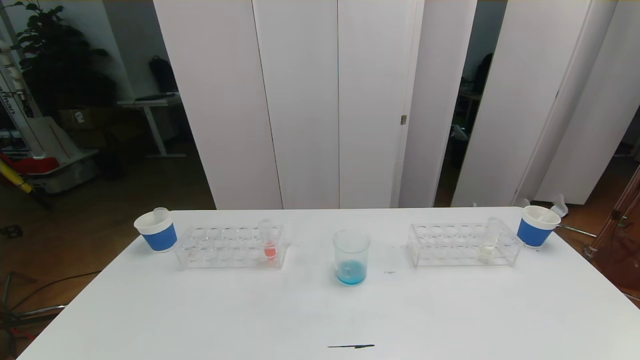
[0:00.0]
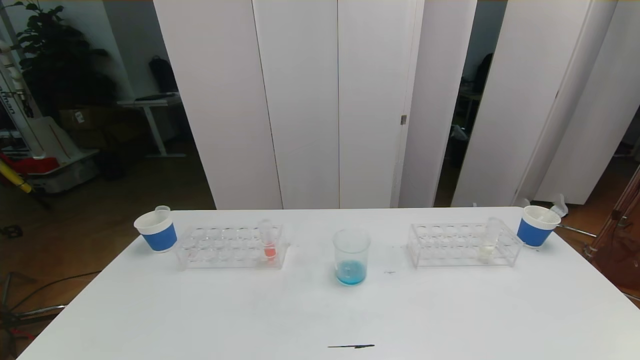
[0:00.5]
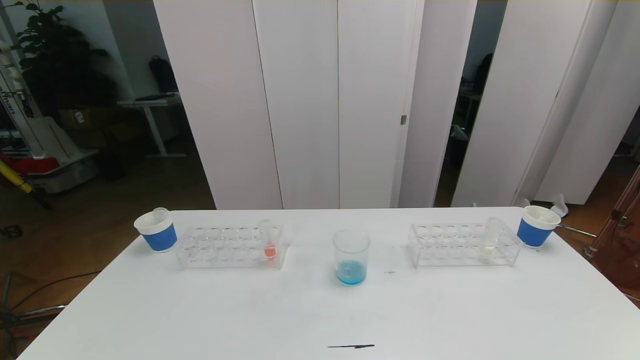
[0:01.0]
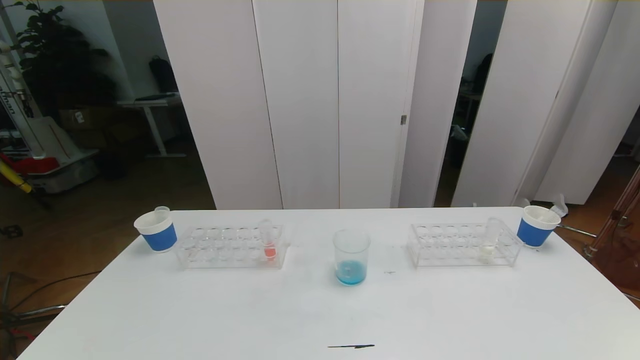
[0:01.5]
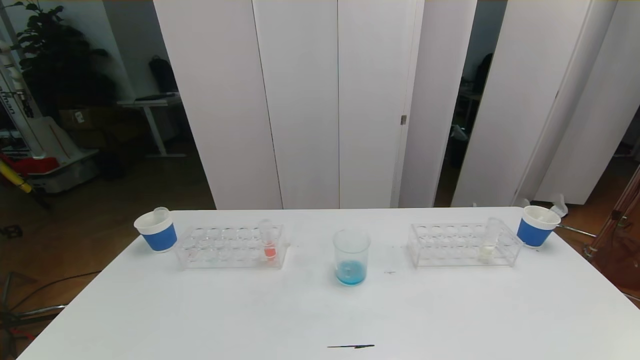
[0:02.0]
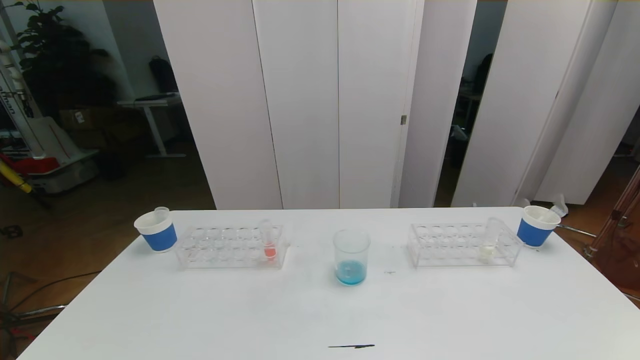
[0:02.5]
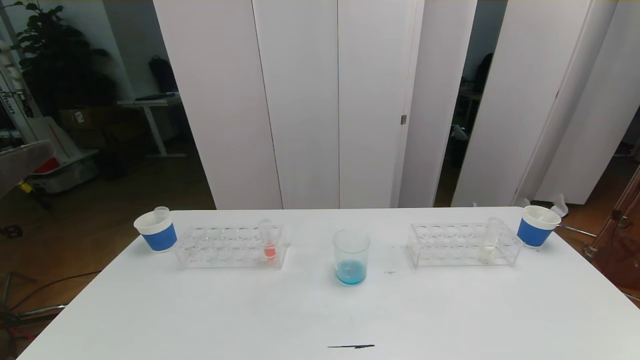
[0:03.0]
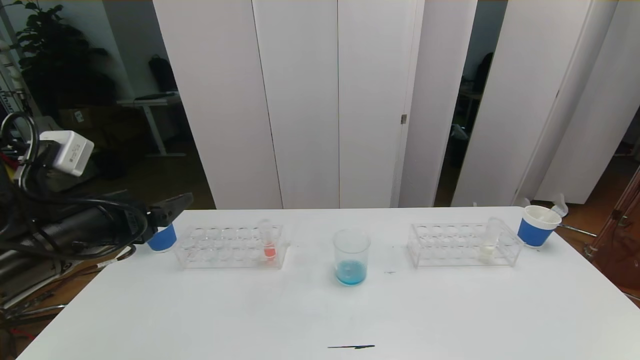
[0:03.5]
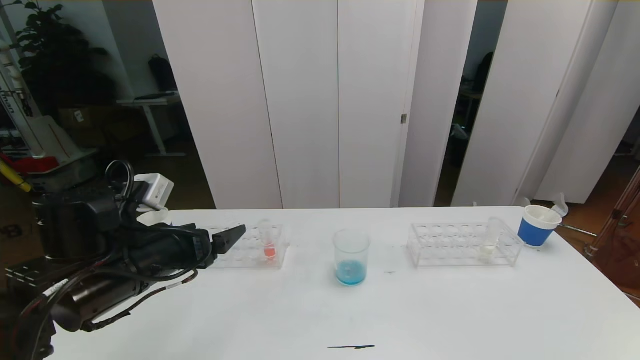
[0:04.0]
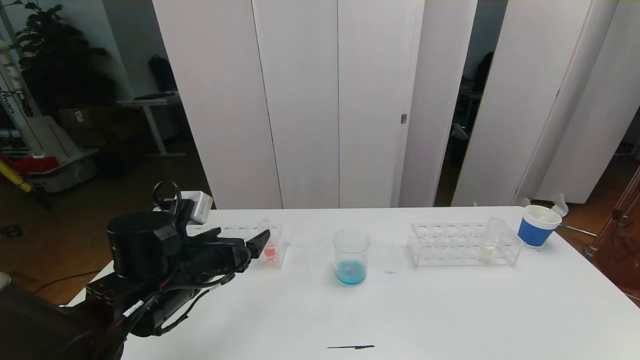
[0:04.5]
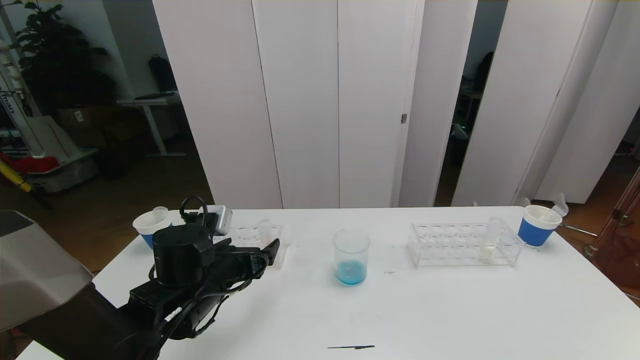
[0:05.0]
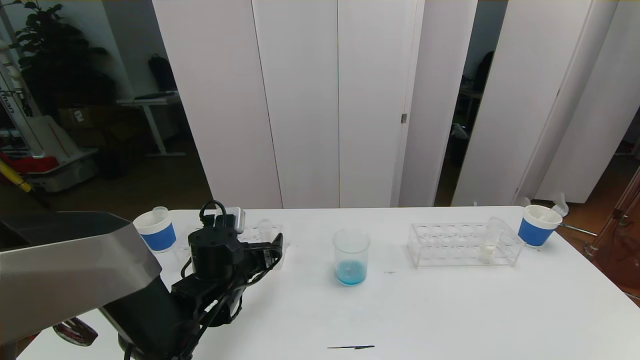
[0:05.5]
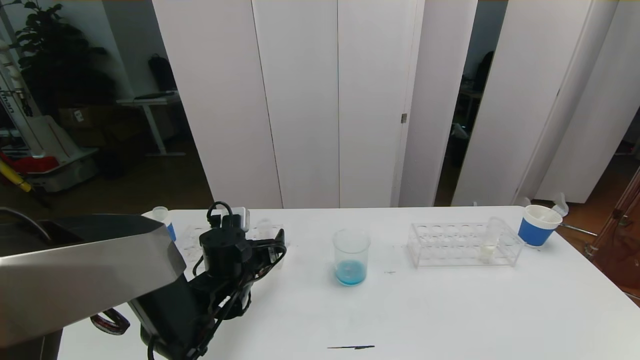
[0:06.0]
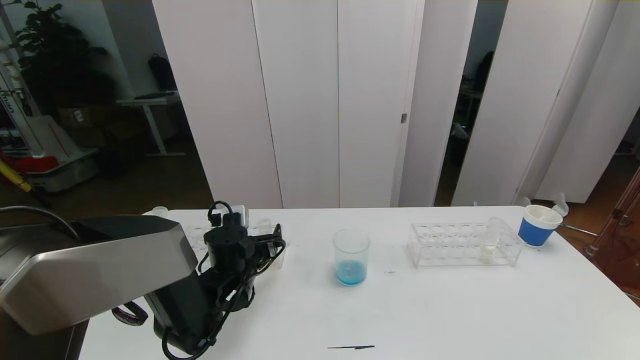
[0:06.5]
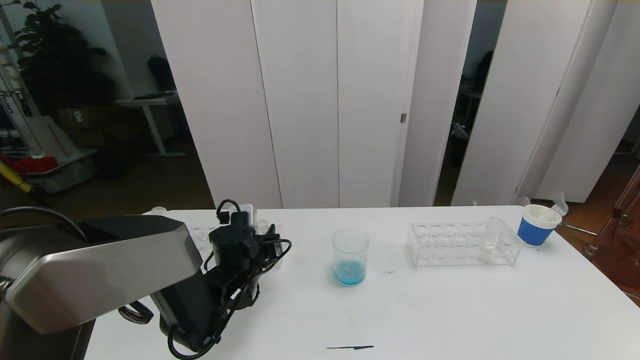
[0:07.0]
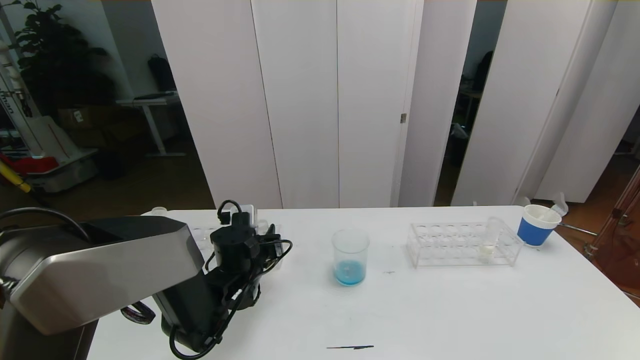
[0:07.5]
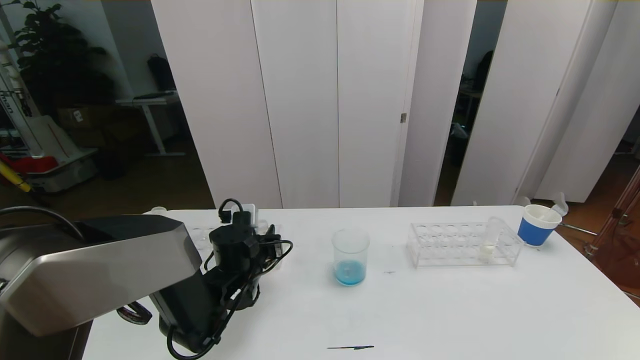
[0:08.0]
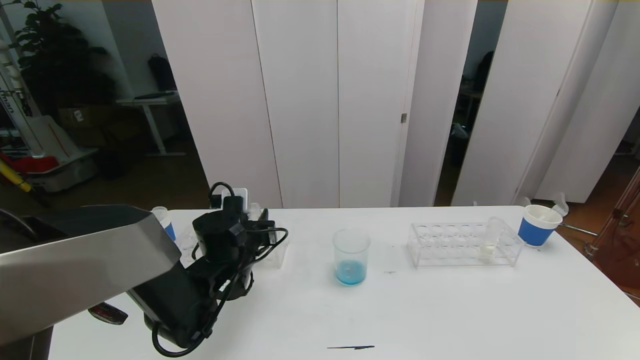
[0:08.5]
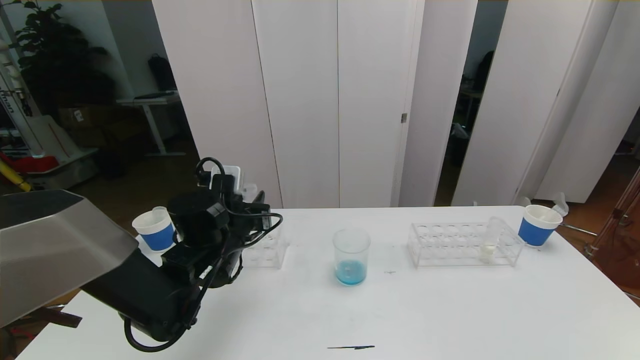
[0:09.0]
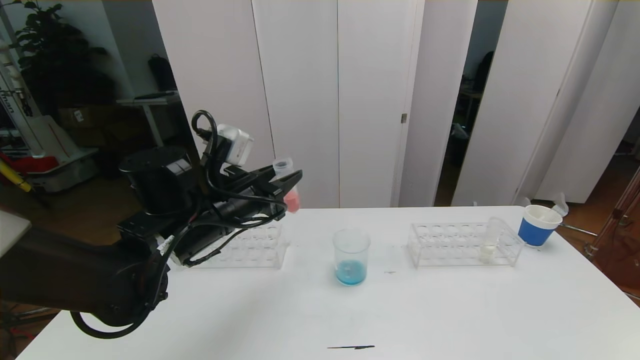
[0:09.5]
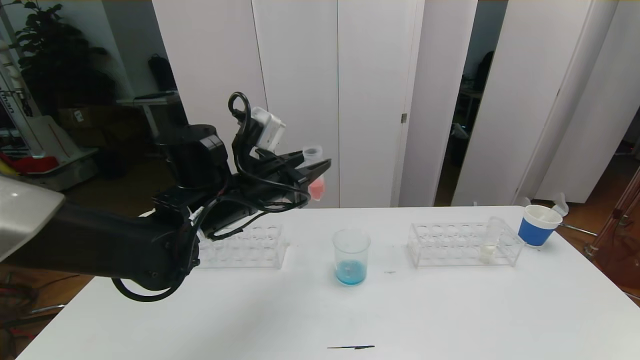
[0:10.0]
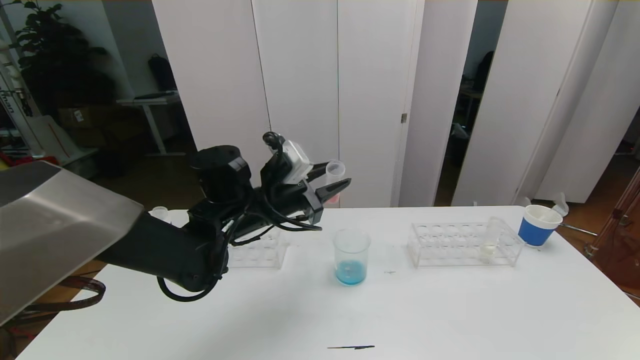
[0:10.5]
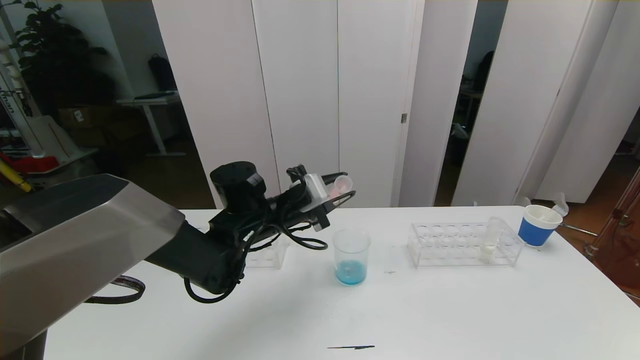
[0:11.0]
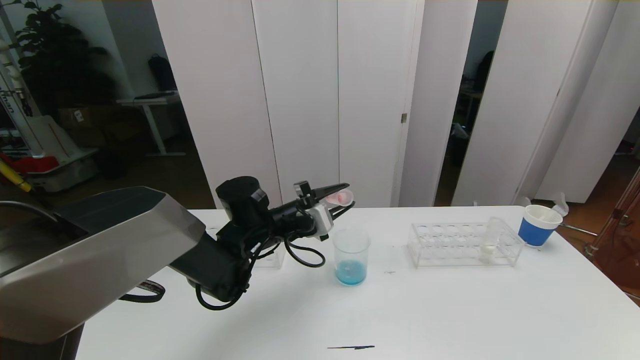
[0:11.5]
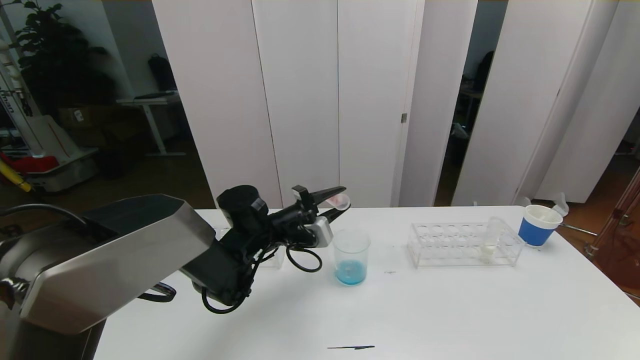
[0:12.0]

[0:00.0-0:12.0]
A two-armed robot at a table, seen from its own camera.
Task of the whole recording: pick up the test tube with red pigment the test tube with blue pigment and the test tube with white pigment by grippers and pour them into the beaker.
0:02.0 to 0:04.0: The left gripper goes some 30 cm forward.
0:04.0 to 0:06.0: The left gripper goes about 15 cm downward, forward and to the right.
0:06.0 to 0:08.0: The left gripper closes up.
0:08.0 to 0:10.0: The left gripper is displaced upward by some 15 cm.
0:10.0 to 0:12.0: The left gripper goes about 10 cm downward and forward.

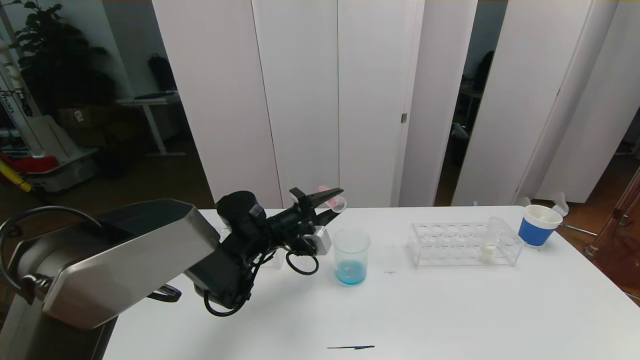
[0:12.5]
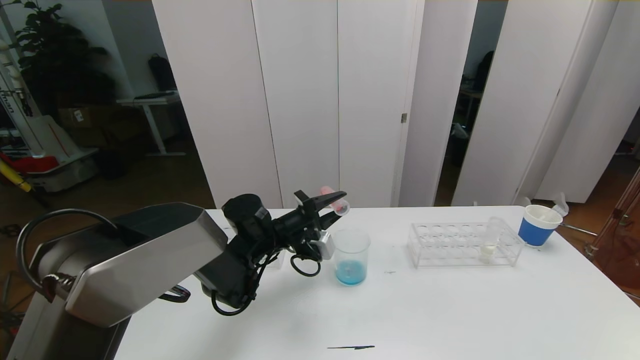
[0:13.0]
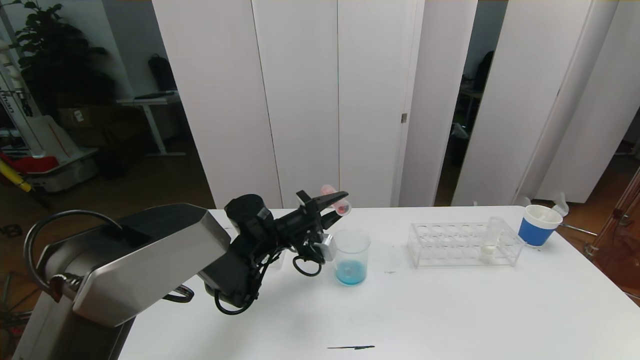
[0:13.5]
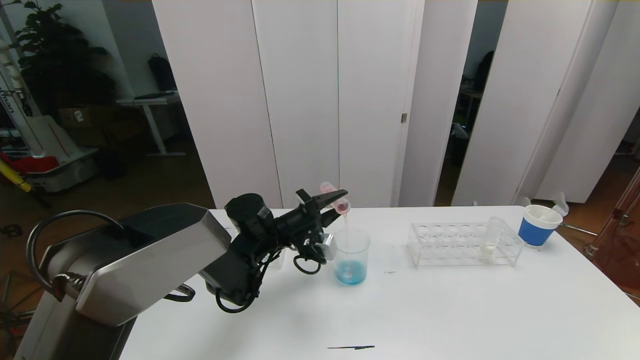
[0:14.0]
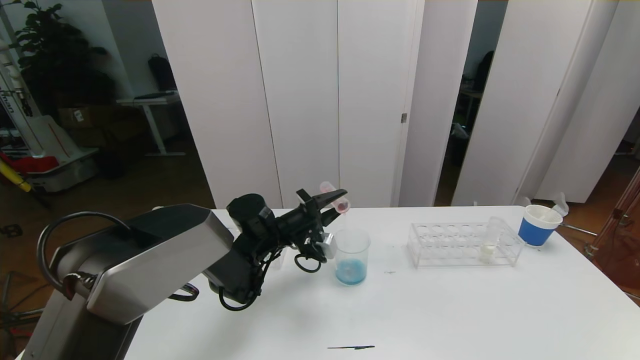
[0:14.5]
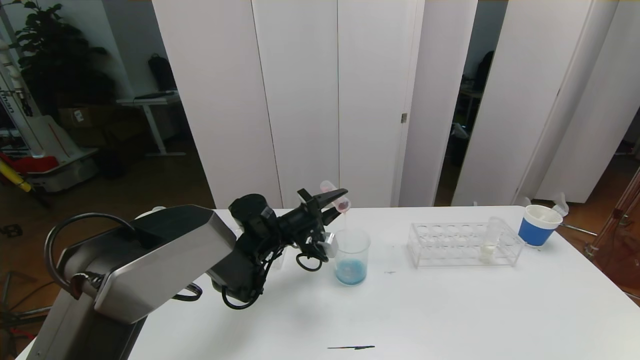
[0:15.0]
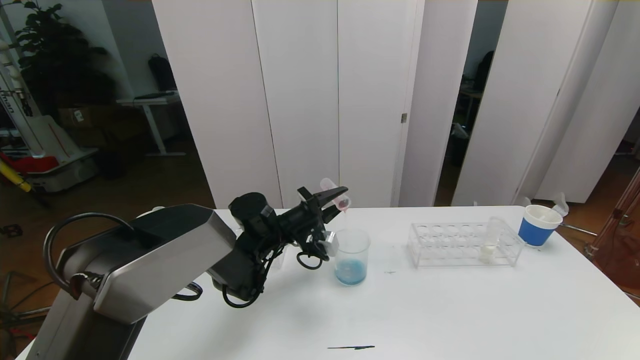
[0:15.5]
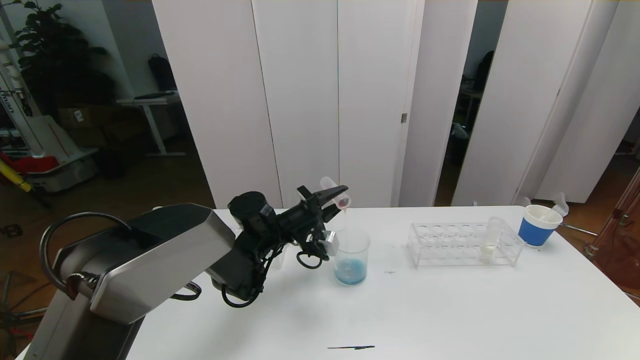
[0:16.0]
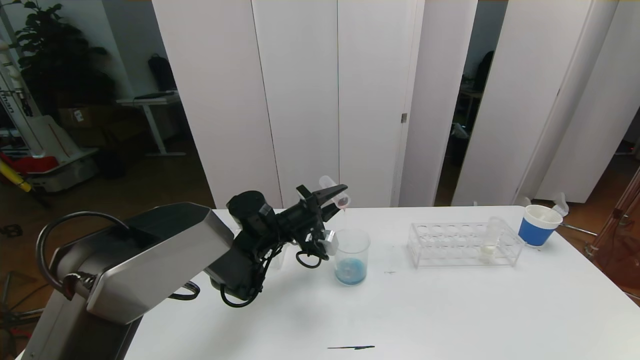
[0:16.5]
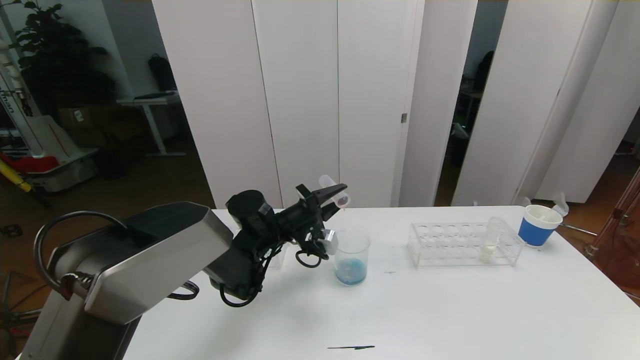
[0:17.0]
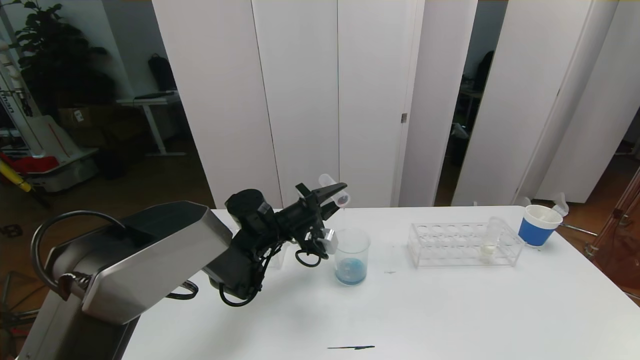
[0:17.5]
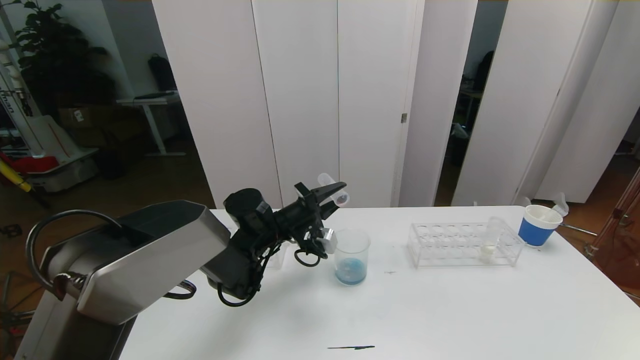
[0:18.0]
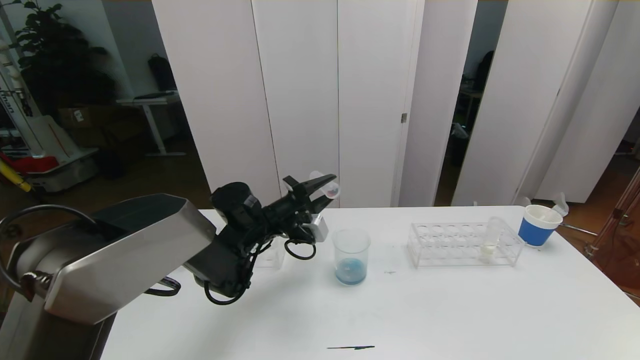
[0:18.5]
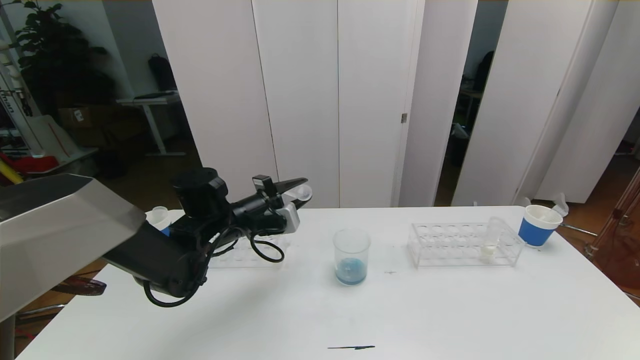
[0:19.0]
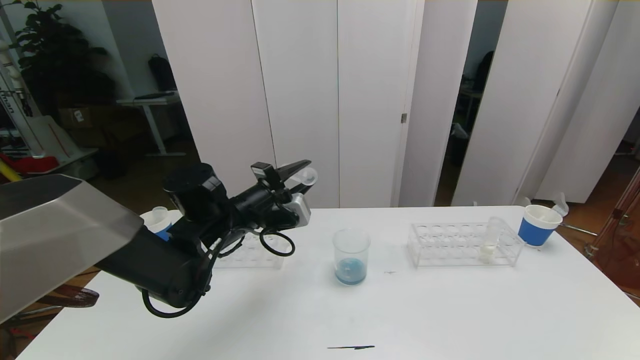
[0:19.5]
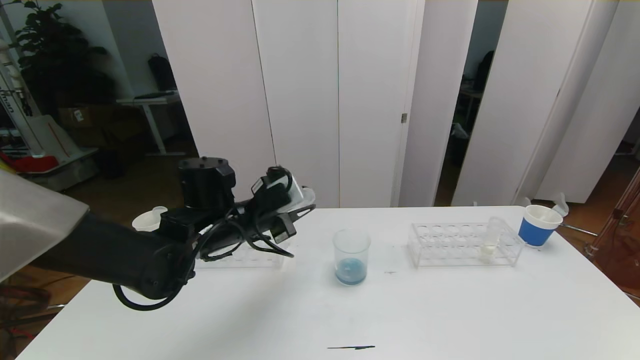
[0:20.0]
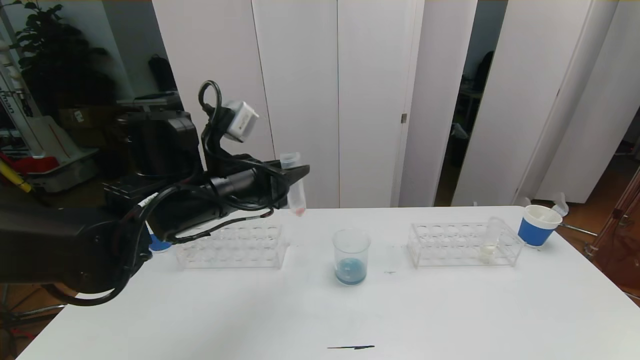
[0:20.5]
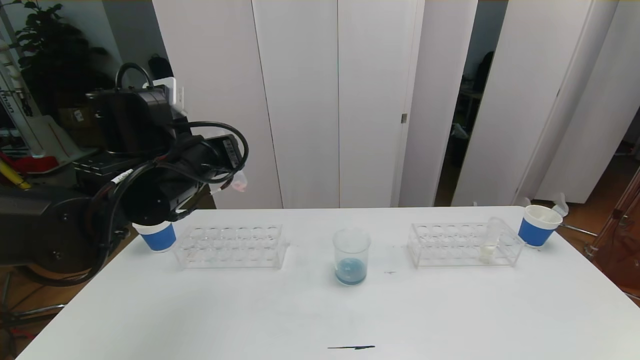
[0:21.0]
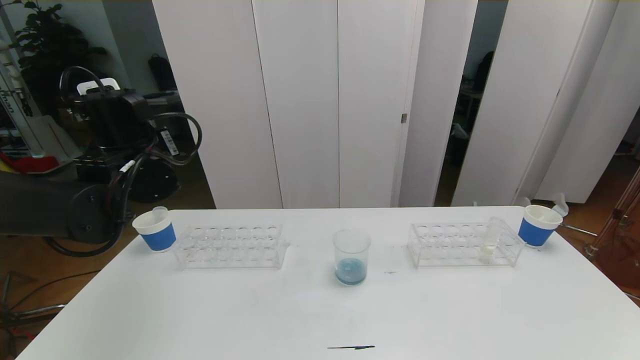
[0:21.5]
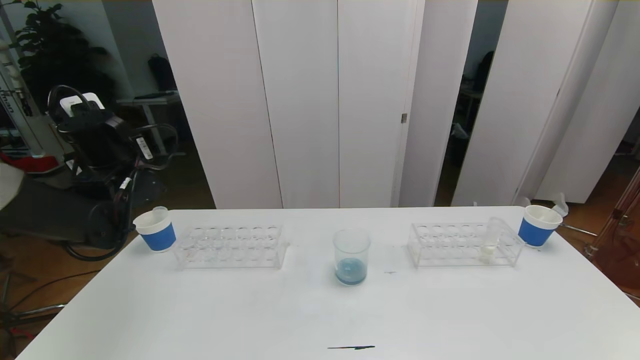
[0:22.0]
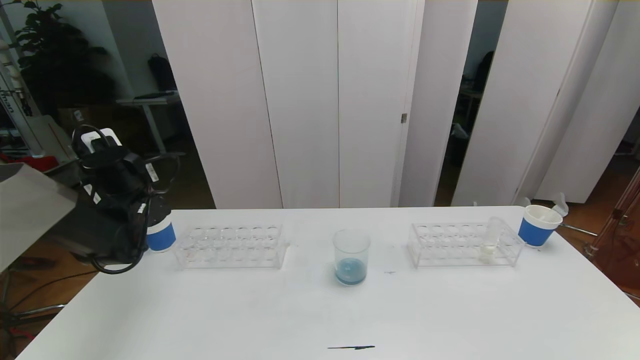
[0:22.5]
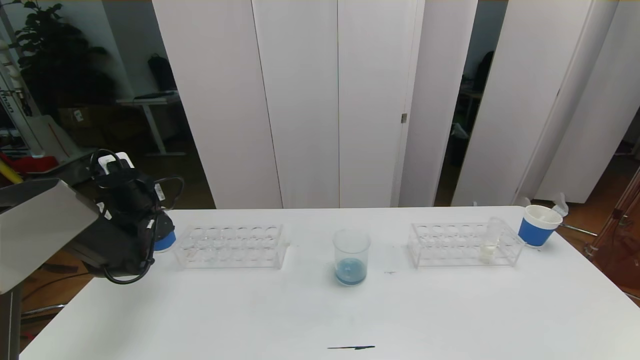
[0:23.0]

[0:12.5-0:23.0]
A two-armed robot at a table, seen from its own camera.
Task of the whole recording: pick up the test tube with red pigment the test tube with blue pigment and the test tube with white pigment by grippers and pour them into the beaker.
0:12.5 to 0:14.5: The grippers move only a little.
0:14.5 to 0:16.5: The two grippers keep their place.
0:16.5 to 0:19.0: The left gripper is displaced to the left and upward by some 10 cm.
0:19.0 to 0:21.0: The left gripper goes roughly 15 cm upward and backward.
0:21.0 to 0:23.0: The left gripper goes roughly 25 cm to the left, downward and forward.
